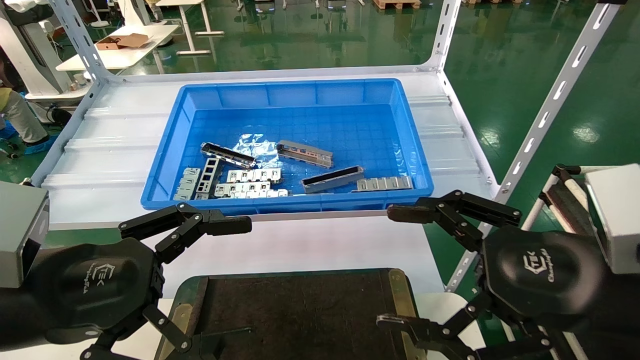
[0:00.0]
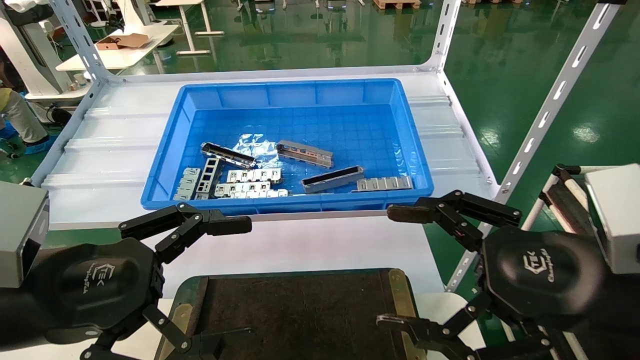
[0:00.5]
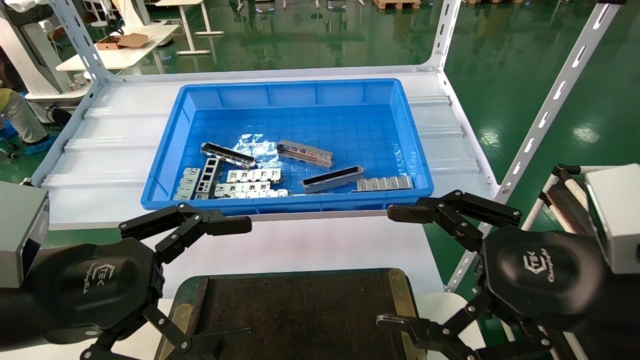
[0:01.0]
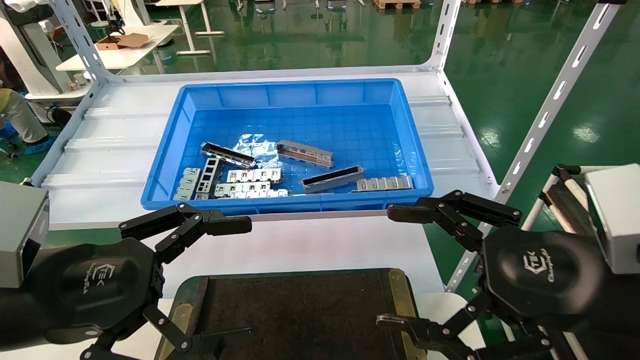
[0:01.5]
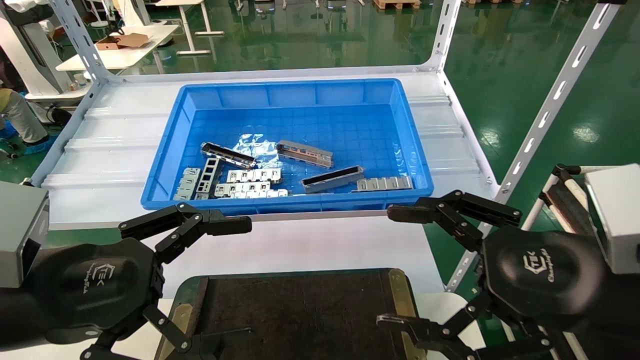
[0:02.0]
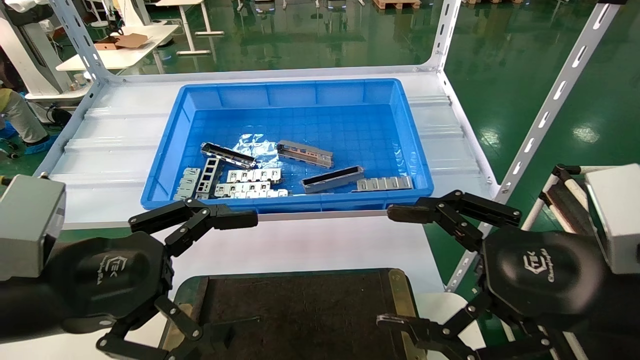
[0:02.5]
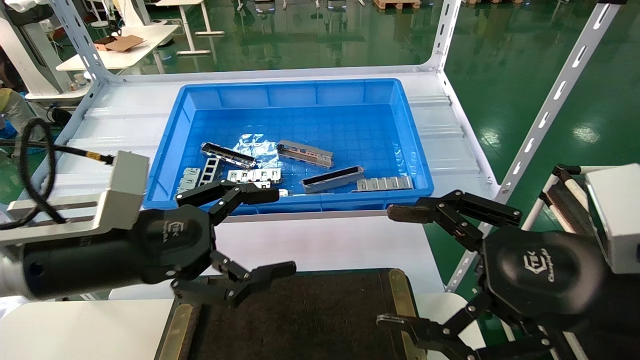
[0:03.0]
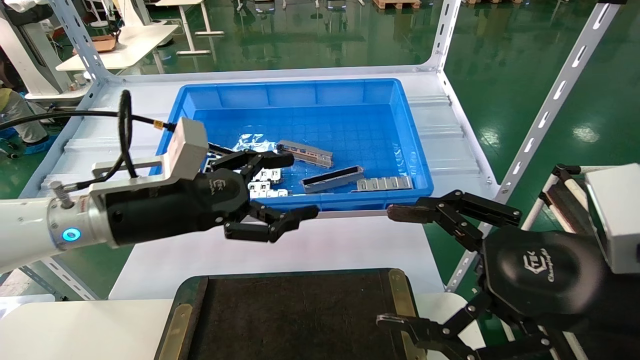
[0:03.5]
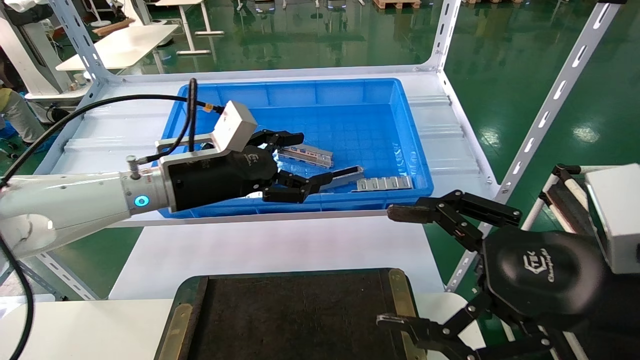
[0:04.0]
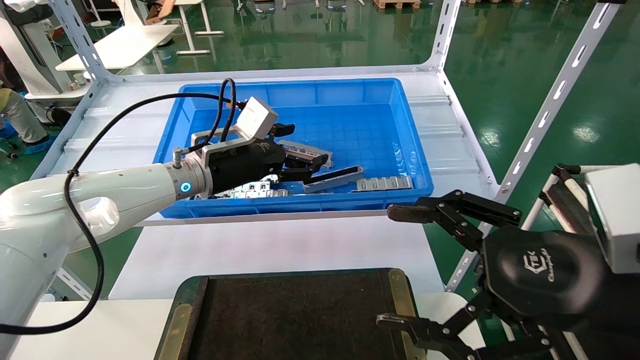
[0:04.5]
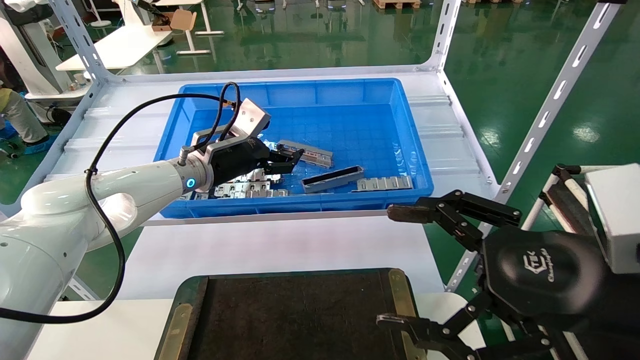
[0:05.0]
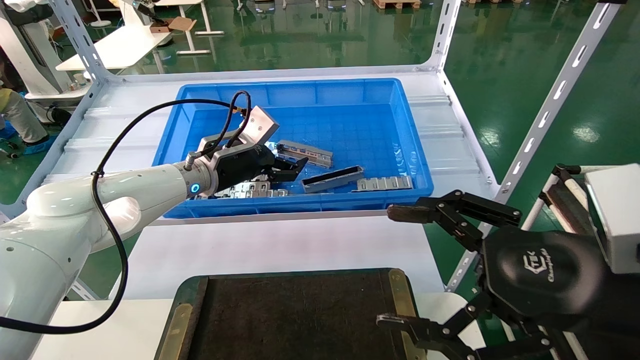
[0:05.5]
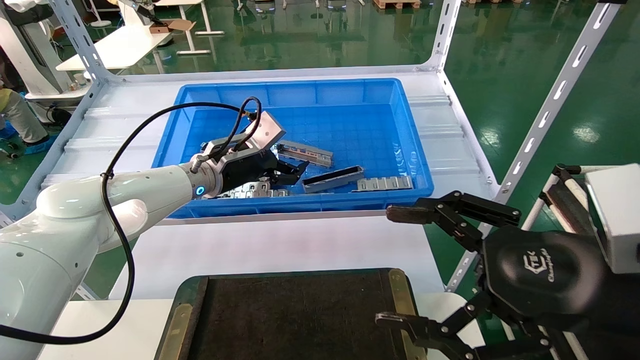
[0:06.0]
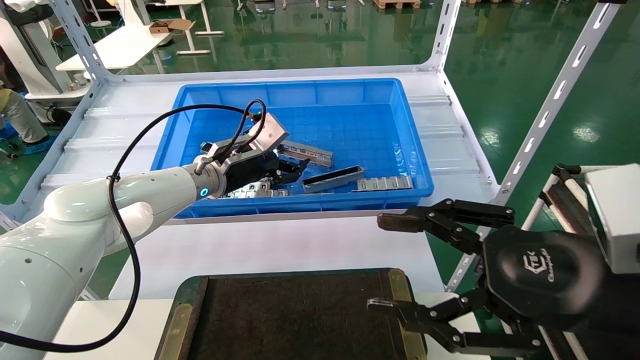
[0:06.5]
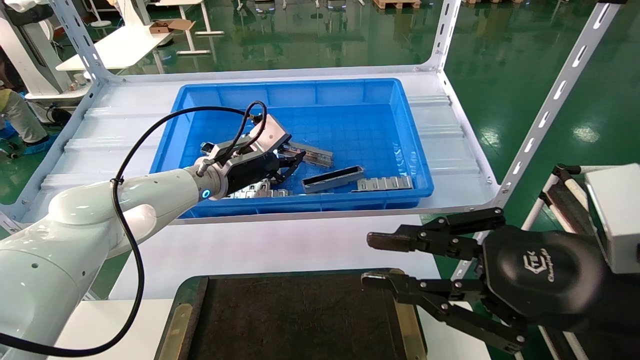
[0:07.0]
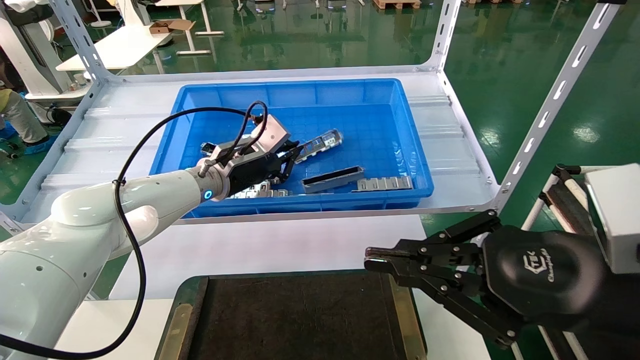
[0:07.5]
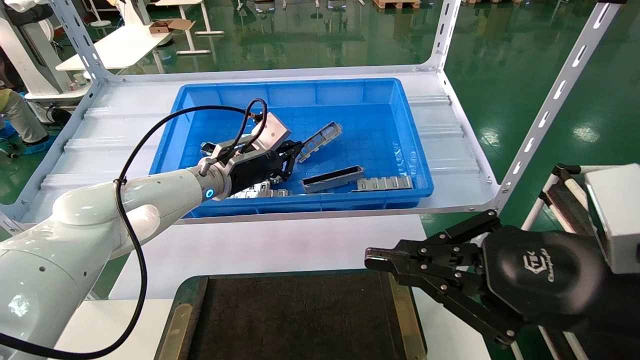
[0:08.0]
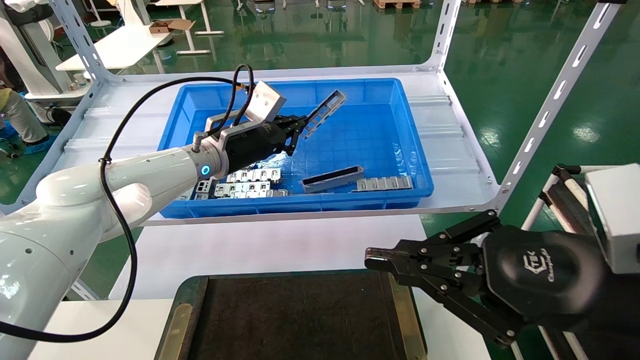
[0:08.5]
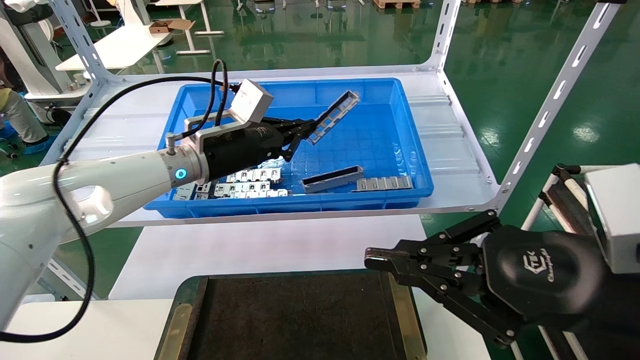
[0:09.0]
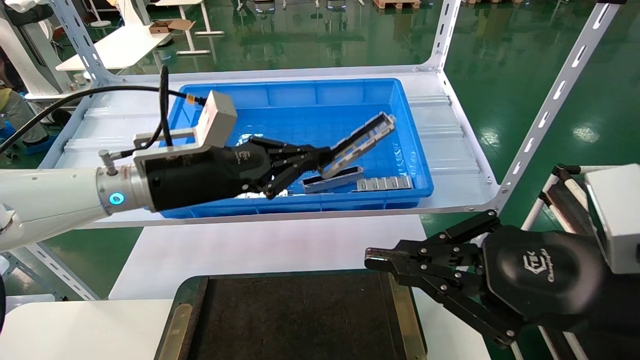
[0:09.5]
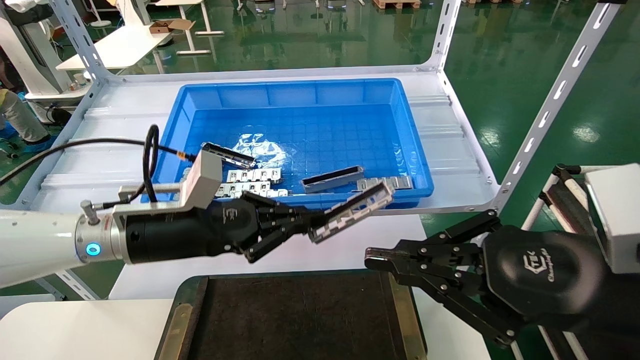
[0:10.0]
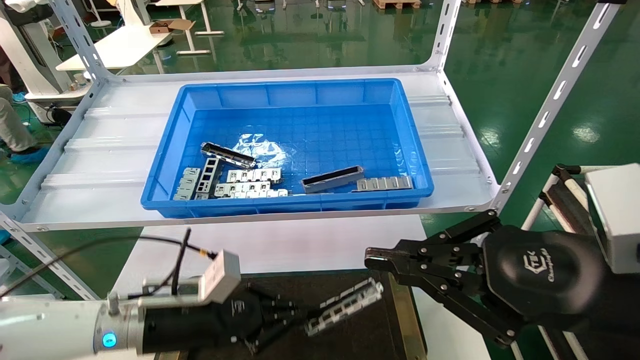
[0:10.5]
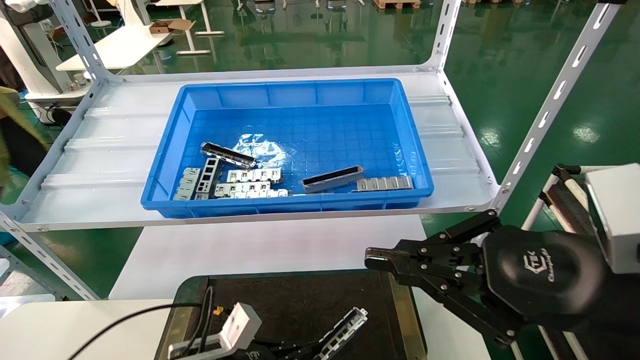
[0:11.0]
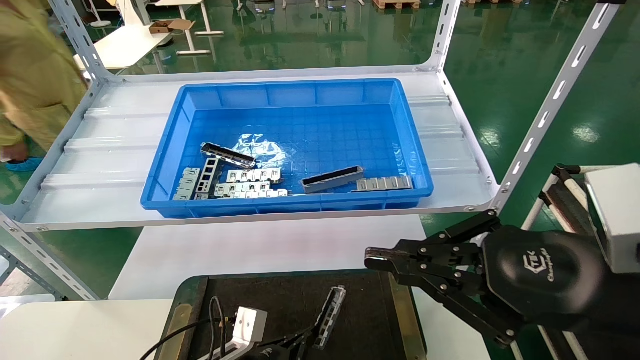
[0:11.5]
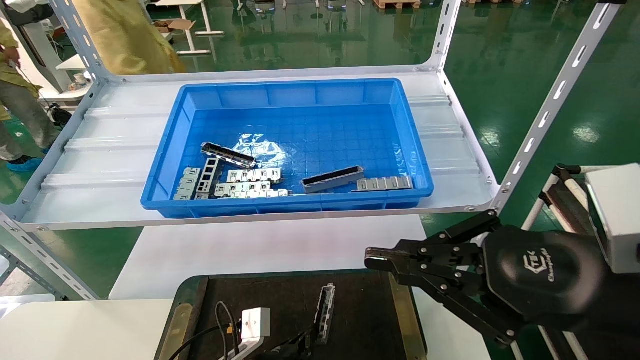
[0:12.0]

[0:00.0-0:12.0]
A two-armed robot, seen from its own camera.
Task of the whole recording: Grasp the part with one hand and place it on the black container.
Step, 0:03.0 to 0:07.5: Pick up the front USB bracket from the feeding area.
0:00.0 to 0:02.0: Both grippers stay about where they are.
0:02.0 to 0:04.0: The left gripper goes some 20 cm forward.
0:04.0 to 0:06.0: The left gripper shifts about 10 cm forward.
0:06.0 to 0:08.0: The right gripper closes up; the left gripper closes its fingers.
0:08.0 to 0:10.0: The left gripper goes roughly 15 cm backward.
0:10.0 to 0:12.0: The left gripper is displaced downward by approximately 25 cm.

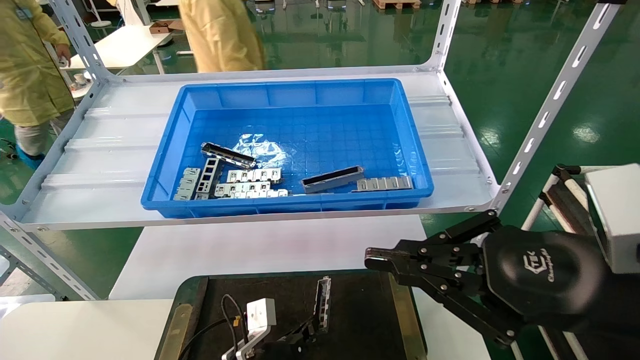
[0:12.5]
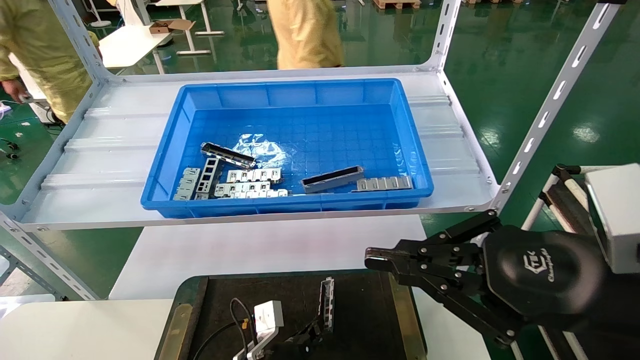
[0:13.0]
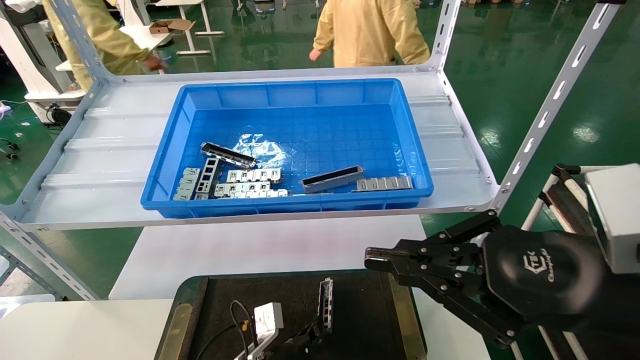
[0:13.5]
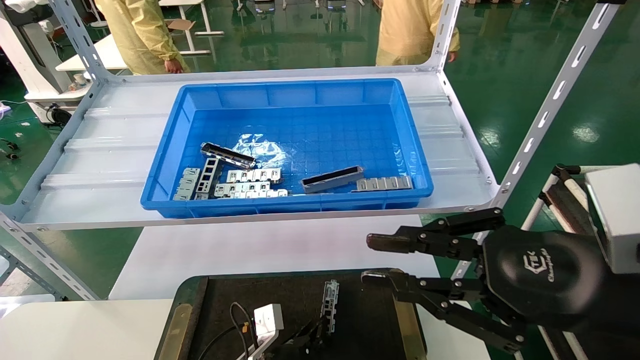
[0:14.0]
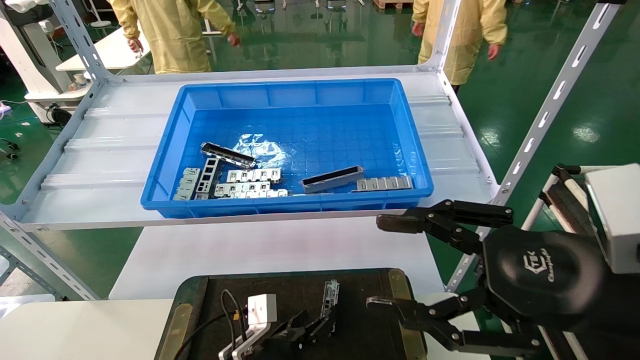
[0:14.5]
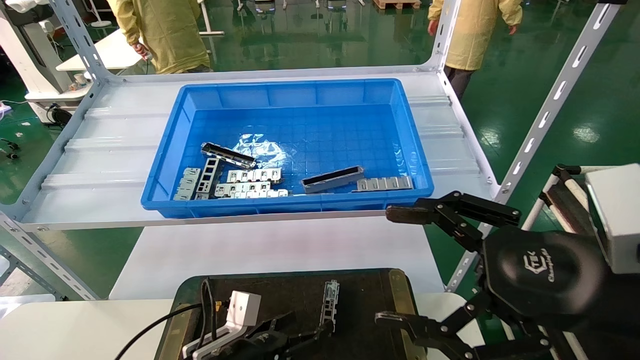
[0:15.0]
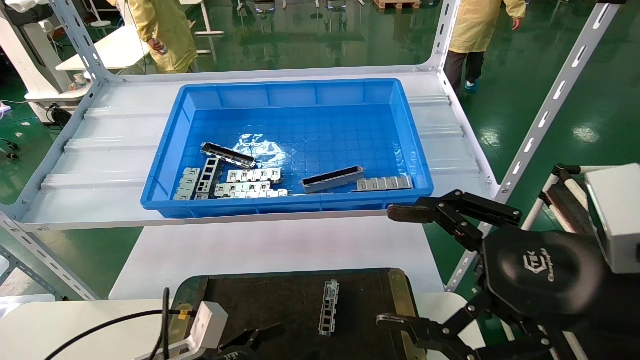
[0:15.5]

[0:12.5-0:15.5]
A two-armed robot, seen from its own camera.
Task of the whole recording: Grasp the part with one hand and place it on the black container.
0:12.5 to 0:14.0: There are only small adjustments of the grippers.
0:14.0 to 0:15.5: The left gripper moves to the left, upward and backward, approximately 15 cm, and opens. The right gripper opens.

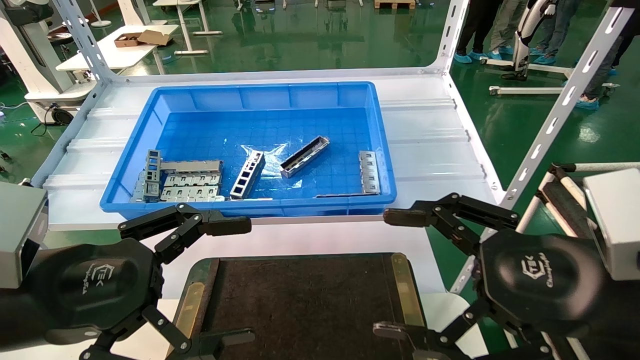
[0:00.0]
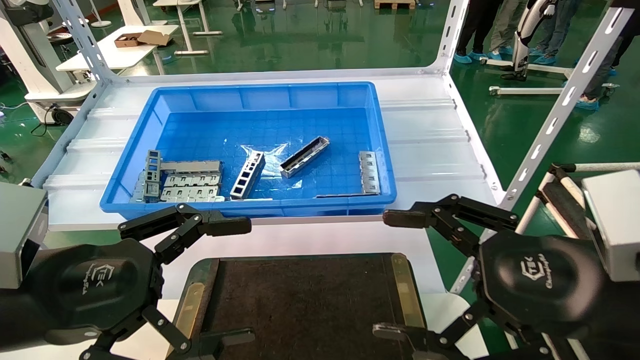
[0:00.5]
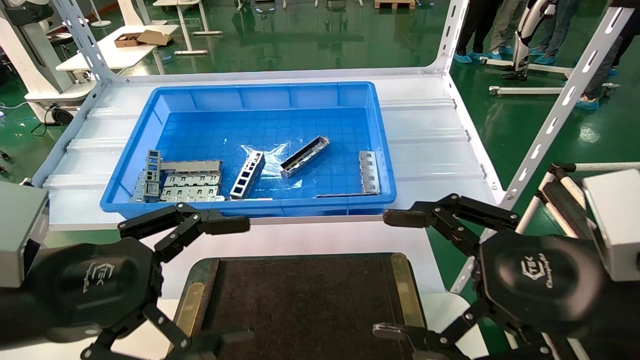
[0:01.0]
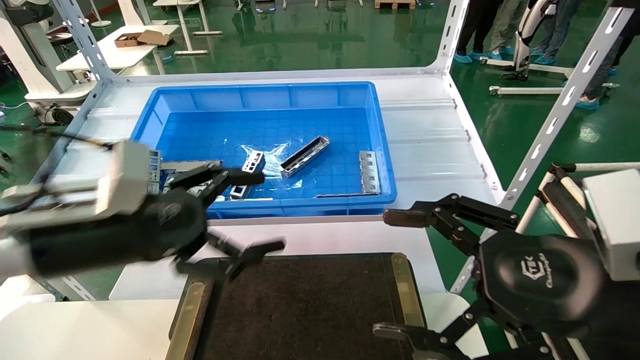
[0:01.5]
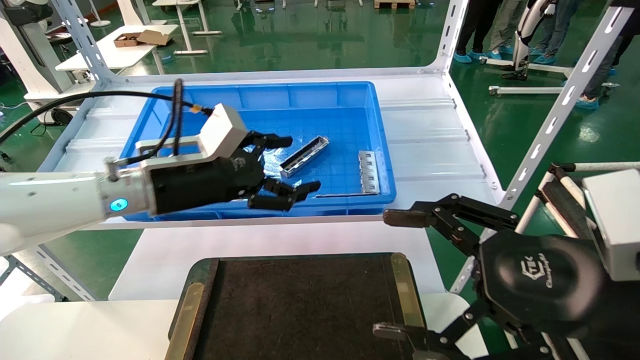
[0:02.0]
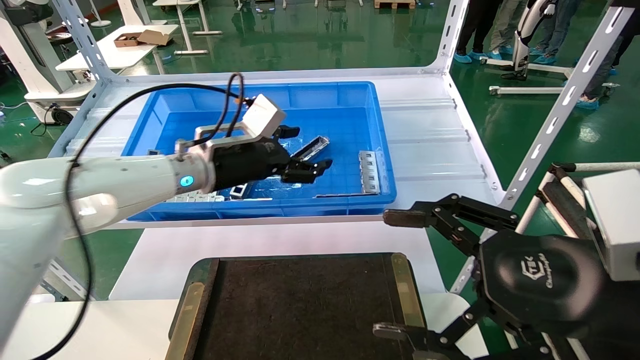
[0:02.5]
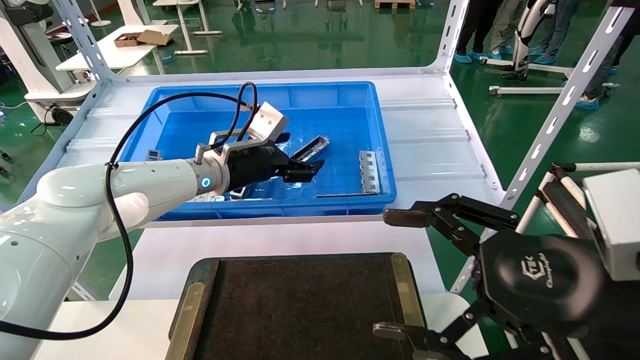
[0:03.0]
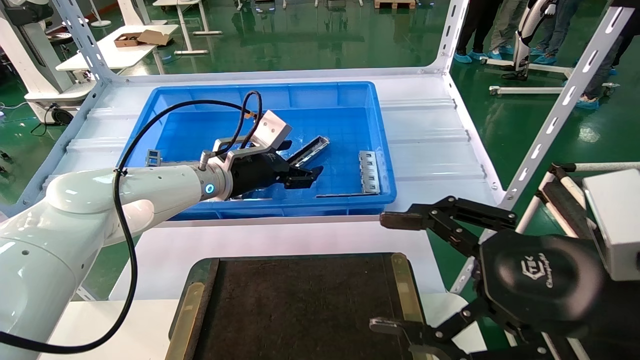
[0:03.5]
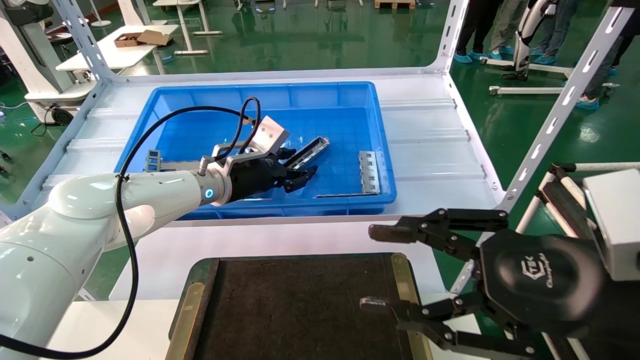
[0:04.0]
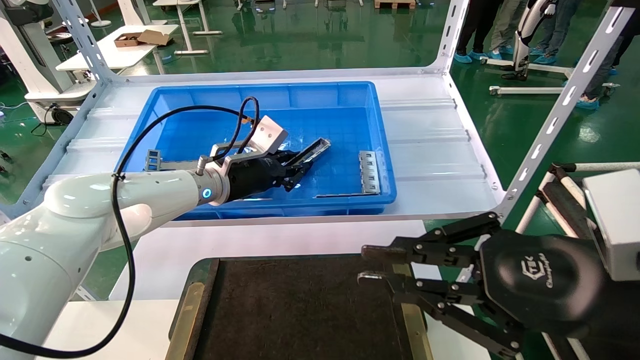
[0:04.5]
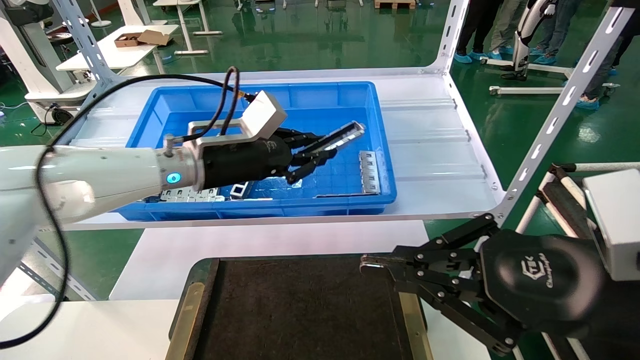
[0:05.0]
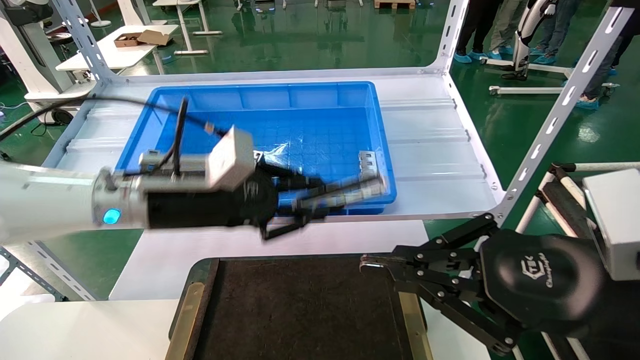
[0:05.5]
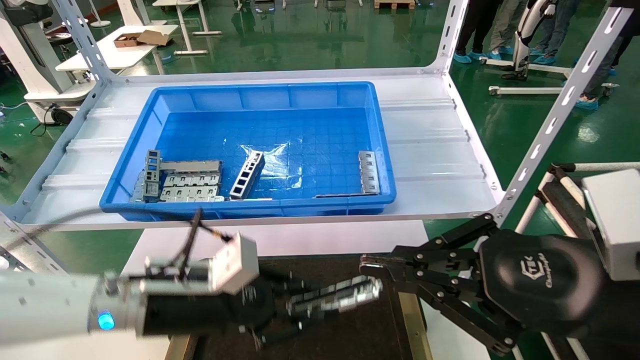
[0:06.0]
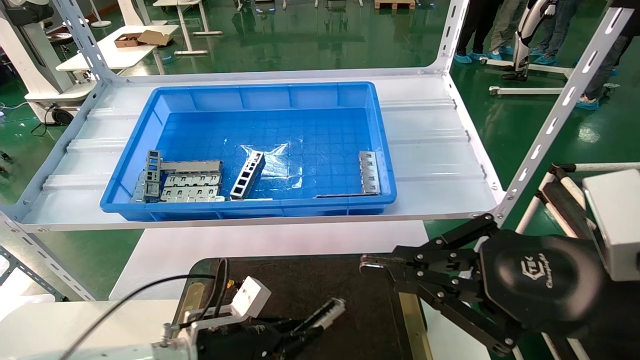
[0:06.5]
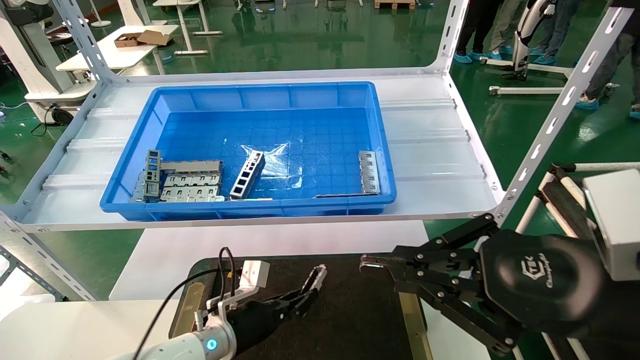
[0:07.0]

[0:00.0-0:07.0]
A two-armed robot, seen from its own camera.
Task of the whole recording: Grasp the part with one hand and place it on the black container.
Step, 0:01.5 to 0:04.5: Pick up the front USB bracket from the feeding area.
0:00.0 to 0:02.0: The left gripper is displaced forward by about 20 cm.
0:02.0 to 0:03.5: The left gripper shifts roughly 10 cm forward.
0:03.5 to 0:05.0: The left gripper travels backward by approximately 5 cm, and closes up, while the right gripper closes up.
0:05.0 to 0:07.0: The left gripper goes some 30 cm downward.
